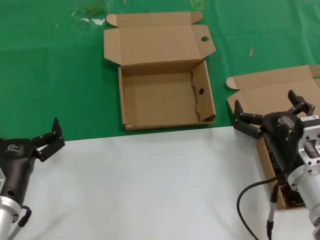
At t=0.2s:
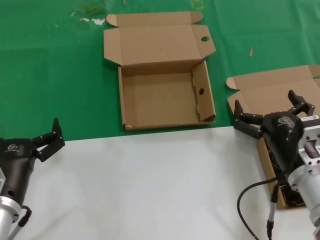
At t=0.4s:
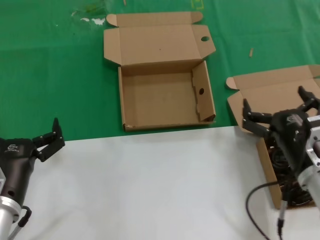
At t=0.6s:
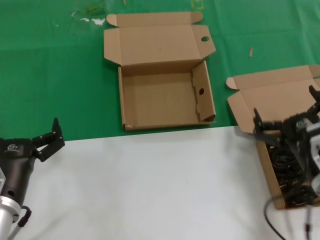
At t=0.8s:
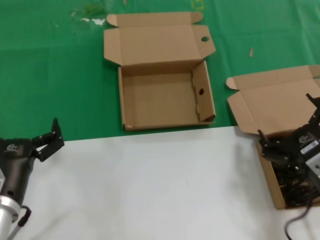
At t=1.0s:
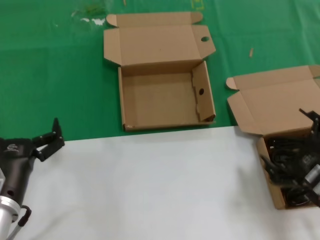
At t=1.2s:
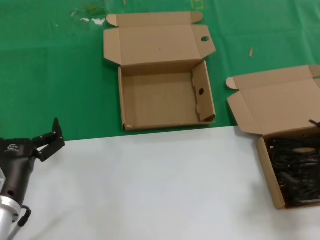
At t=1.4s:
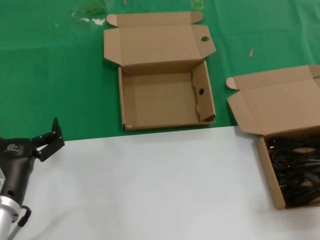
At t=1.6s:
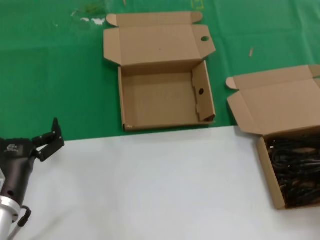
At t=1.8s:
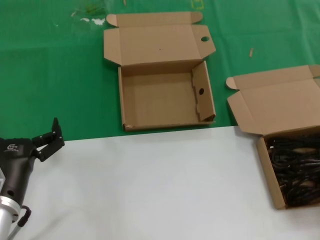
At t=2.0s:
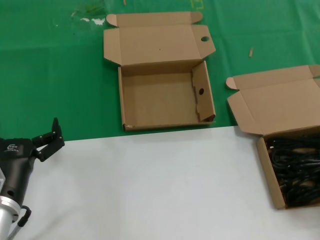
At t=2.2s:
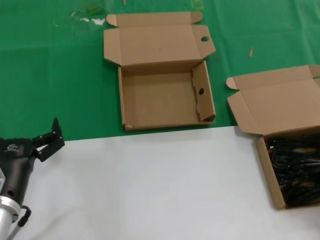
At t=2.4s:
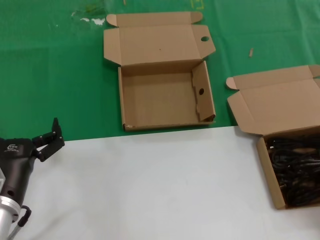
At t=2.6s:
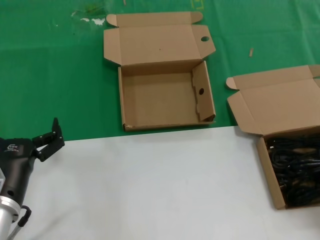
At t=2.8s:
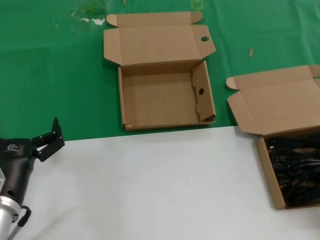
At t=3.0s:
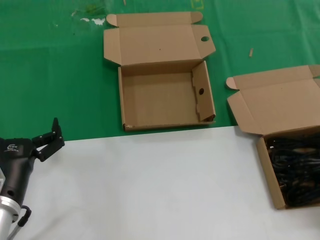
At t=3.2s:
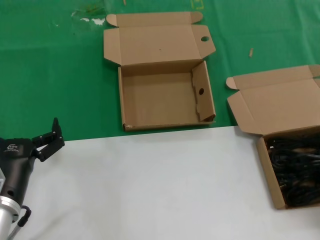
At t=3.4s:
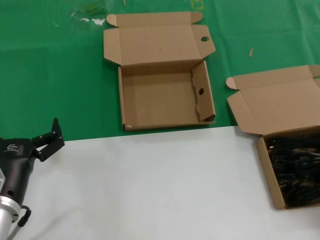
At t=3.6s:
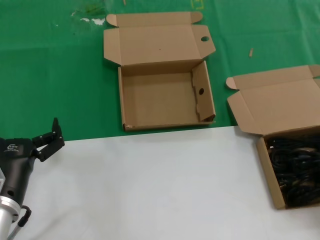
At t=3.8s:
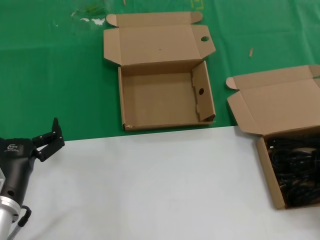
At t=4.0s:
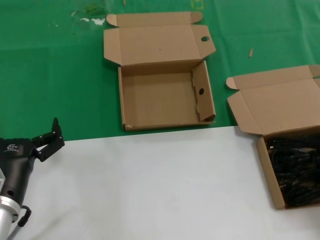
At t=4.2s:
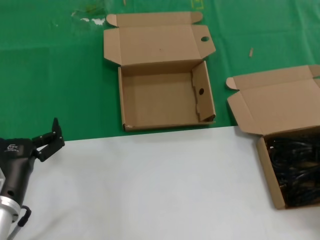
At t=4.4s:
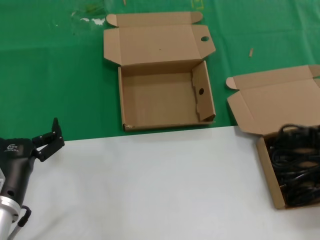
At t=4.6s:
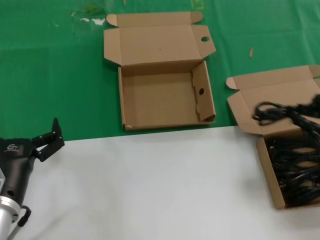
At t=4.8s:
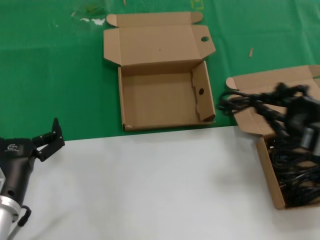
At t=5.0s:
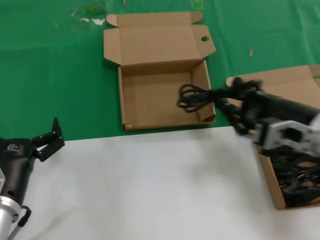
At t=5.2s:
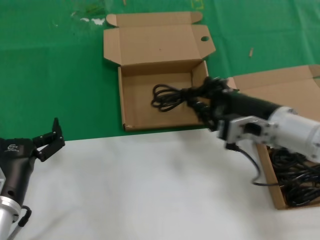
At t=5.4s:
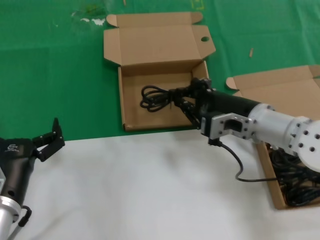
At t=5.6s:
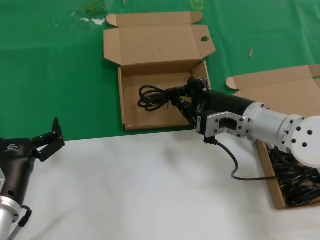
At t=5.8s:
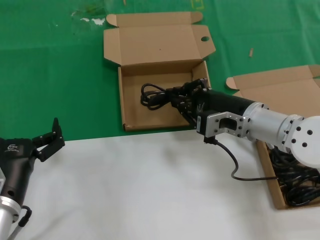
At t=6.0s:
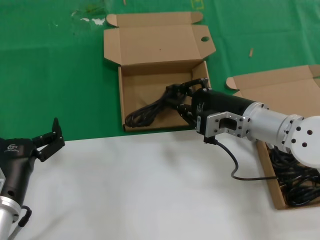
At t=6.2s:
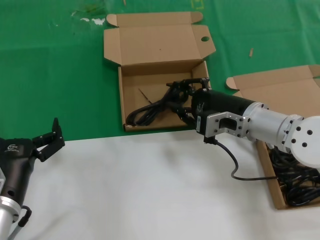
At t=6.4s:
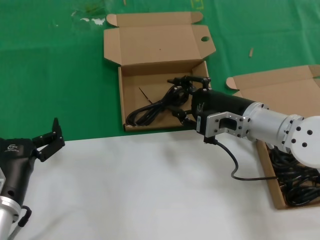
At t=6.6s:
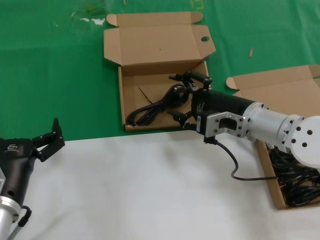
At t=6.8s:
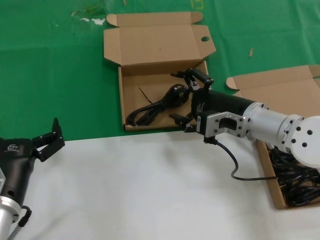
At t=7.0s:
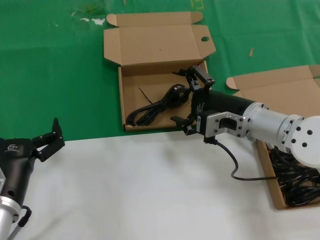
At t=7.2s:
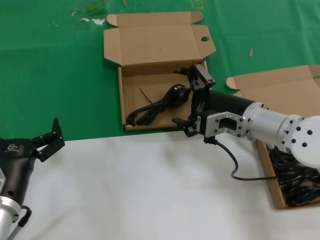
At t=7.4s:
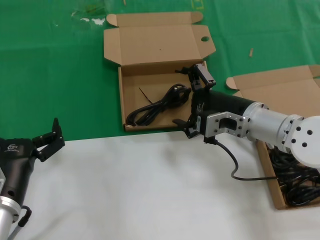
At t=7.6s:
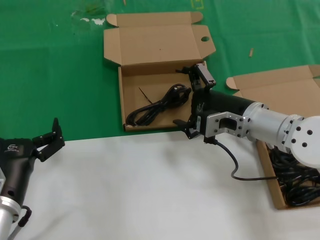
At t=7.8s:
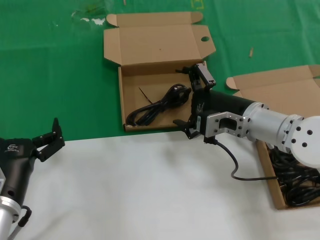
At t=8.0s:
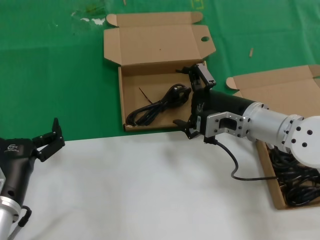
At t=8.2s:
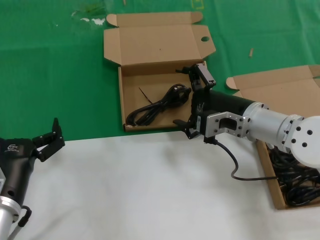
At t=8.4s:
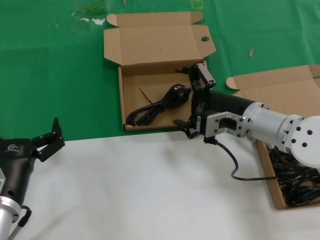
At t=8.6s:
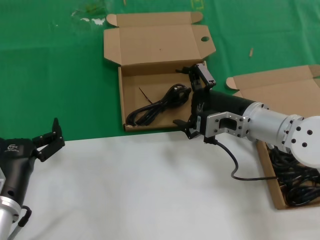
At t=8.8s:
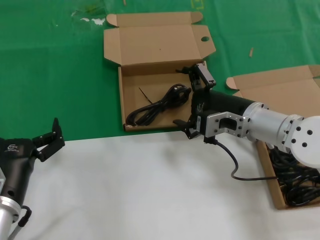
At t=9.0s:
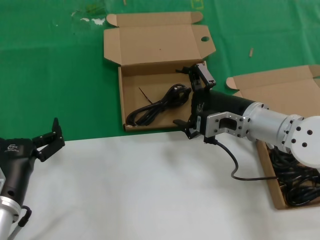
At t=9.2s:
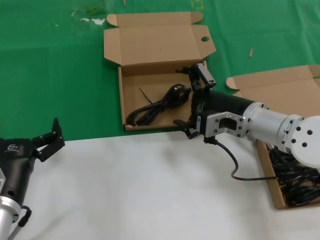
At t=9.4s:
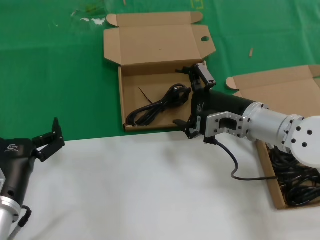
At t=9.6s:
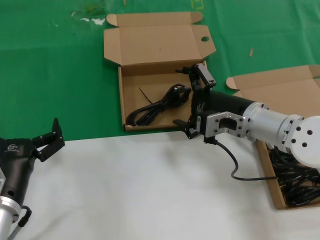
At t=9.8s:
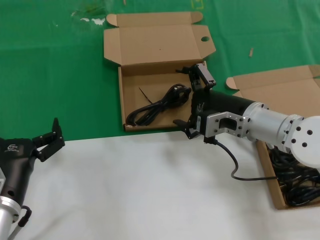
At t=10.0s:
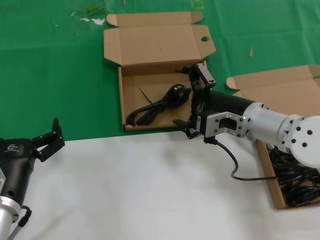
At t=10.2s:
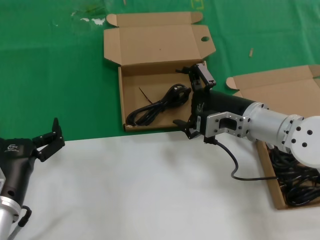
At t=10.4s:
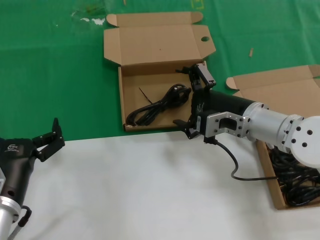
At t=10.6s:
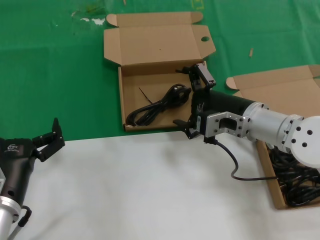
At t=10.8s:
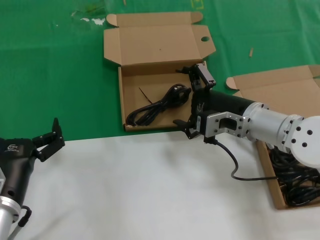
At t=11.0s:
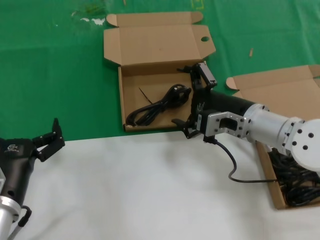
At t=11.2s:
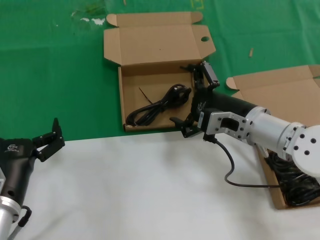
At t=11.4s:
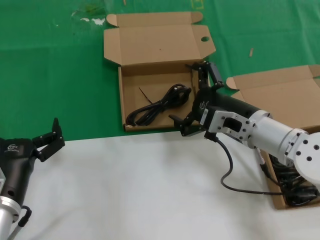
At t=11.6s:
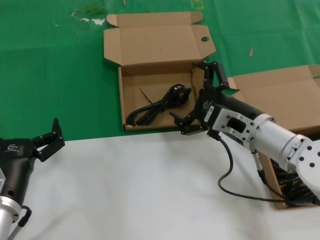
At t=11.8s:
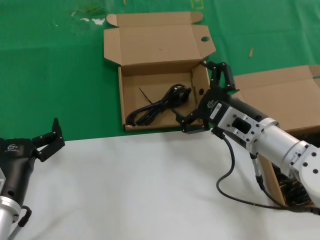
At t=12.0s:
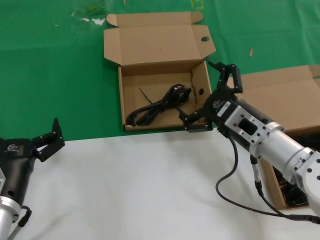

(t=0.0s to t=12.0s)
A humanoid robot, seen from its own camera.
Task of the whole recording: take the parts from the box containing them and put them into an empty box.
Step, t=0.0s - t=3.8s: Grasp the data cable.
Step, t=4.0s - t=7.2s: Place the data cable in the another box.
t=0.0s - t=1.6s: The right hand travels to the right, upward and backward by some 20 cm.
t=4.4s - t=6.0s: The right hand is displaced to the left and forward by roughly 25 cm.
t=6.0s - t=10.4s: Neither hand changes place.
t=10.4s - t=12.0s: The right hand moves approximately 5 cm.

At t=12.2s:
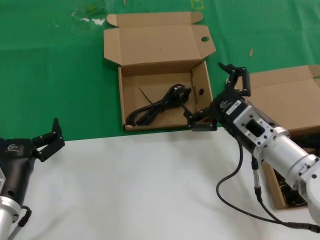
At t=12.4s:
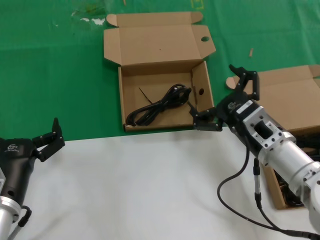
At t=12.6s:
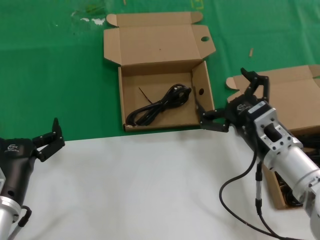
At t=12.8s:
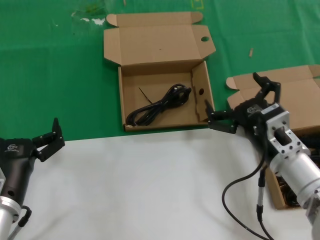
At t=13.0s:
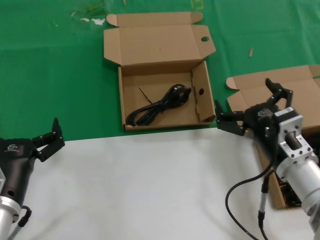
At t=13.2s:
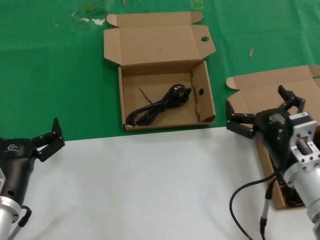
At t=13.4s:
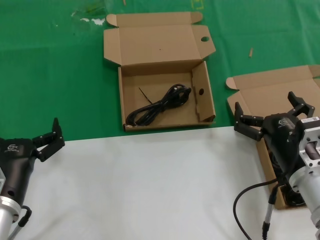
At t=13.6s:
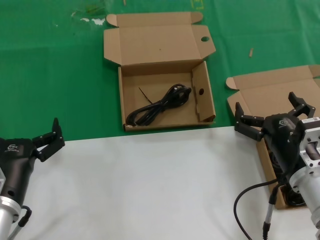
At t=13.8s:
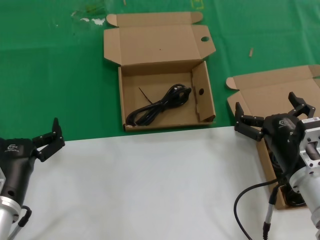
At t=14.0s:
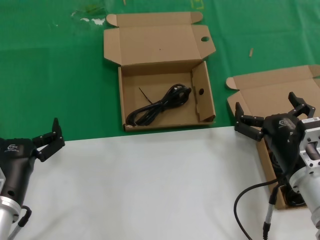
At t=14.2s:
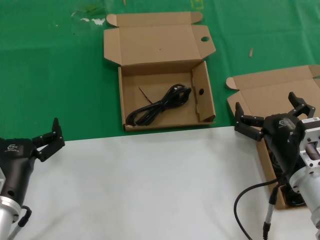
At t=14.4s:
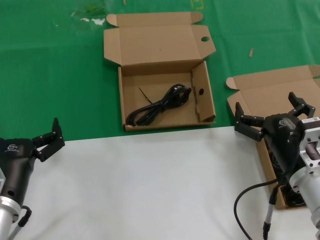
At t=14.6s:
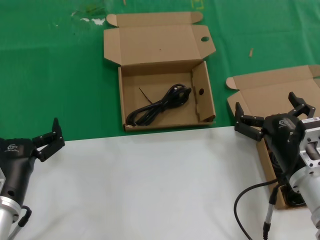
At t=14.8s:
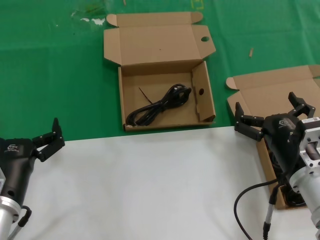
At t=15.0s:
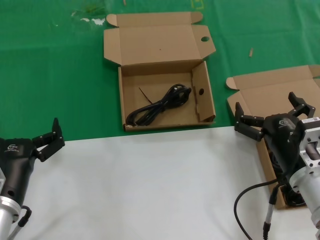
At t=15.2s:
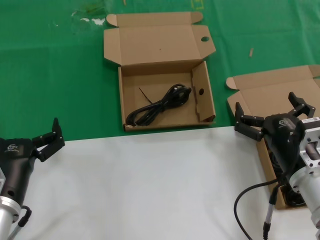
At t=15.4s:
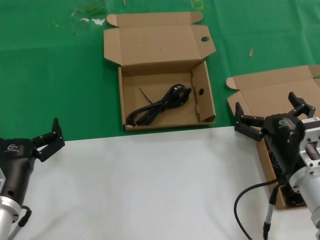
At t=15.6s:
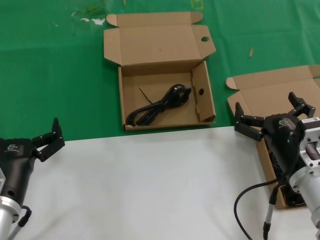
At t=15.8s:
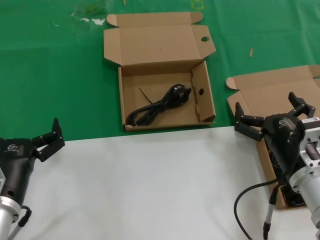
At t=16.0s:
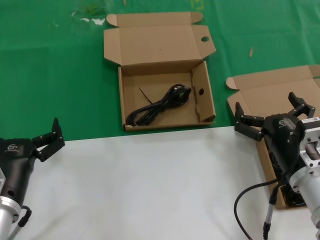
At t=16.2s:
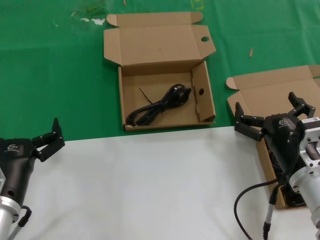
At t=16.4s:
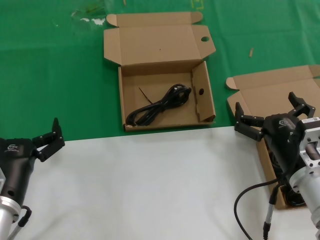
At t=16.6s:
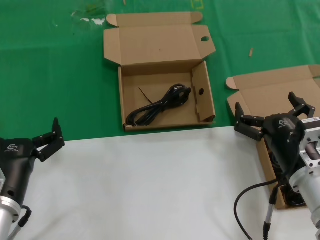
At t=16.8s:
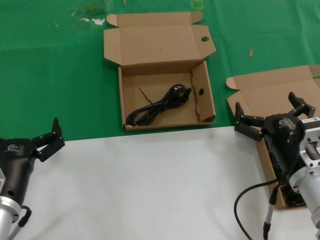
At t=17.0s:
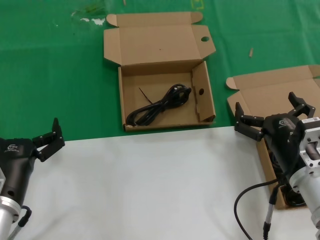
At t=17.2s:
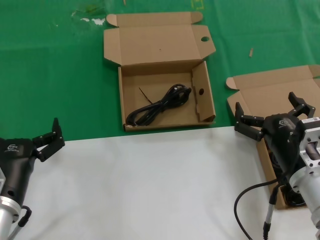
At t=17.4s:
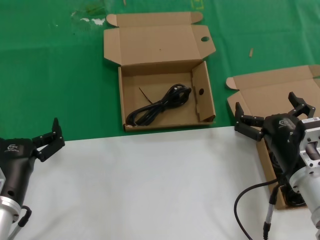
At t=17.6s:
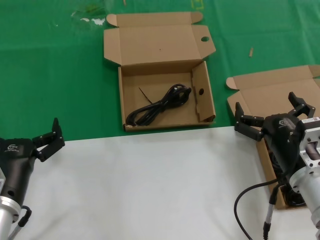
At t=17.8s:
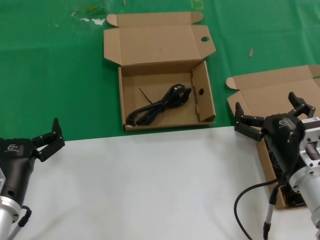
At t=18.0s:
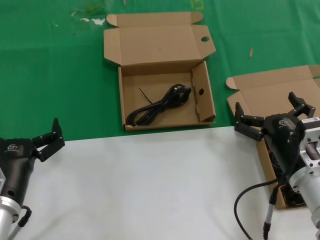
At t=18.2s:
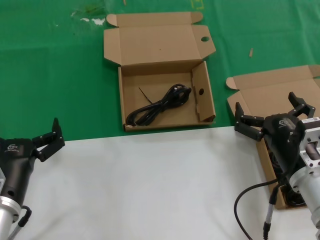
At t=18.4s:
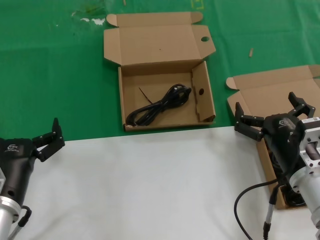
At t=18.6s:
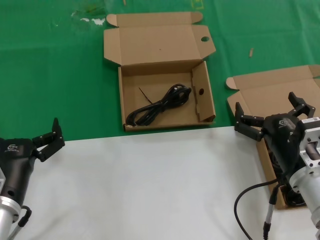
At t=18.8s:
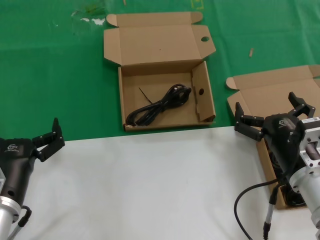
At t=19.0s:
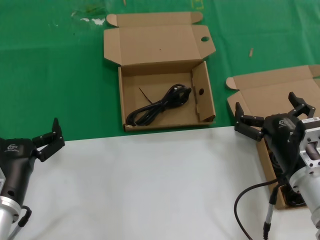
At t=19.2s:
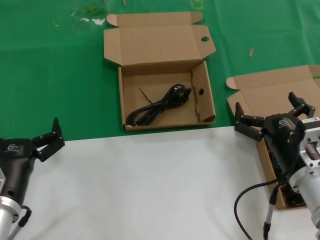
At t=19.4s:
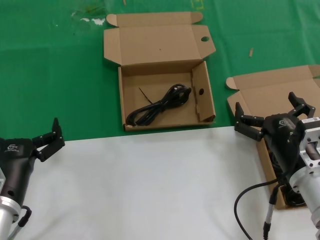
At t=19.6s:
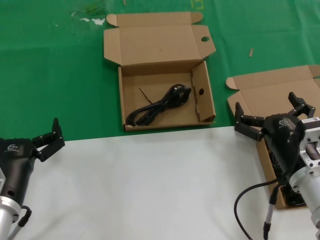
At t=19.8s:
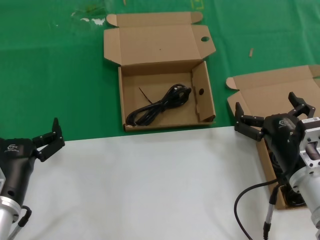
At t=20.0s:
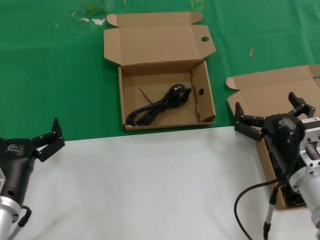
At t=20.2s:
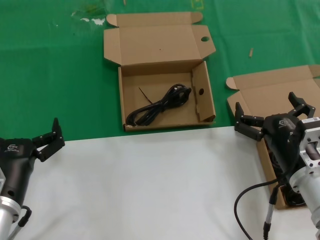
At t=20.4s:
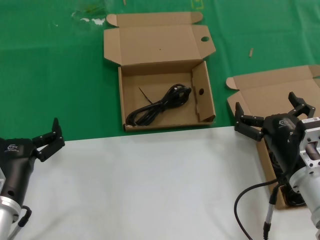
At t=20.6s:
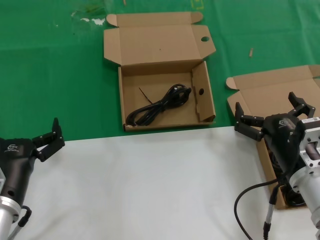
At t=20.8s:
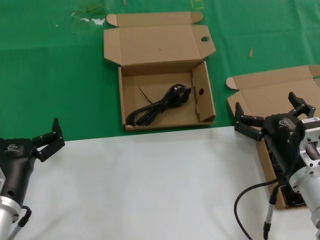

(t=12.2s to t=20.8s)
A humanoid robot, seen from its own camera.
Task of the whole recording: take the parts from the box containing them and put them into an empty box.
t=12.2s - t=13.6s: The right hand goes roughly 5 cm backward.
t=13.6s - t=20.8s: Both hands stay about where they are.
